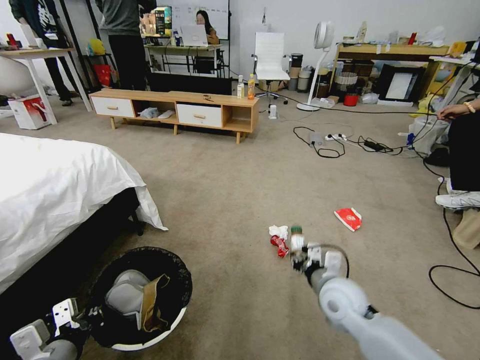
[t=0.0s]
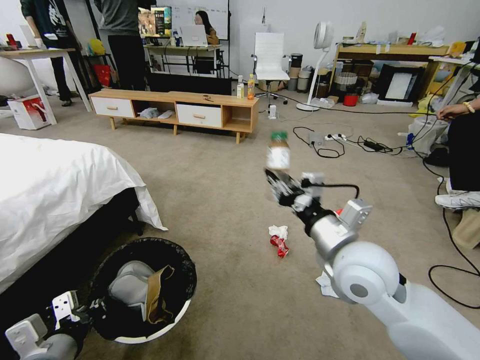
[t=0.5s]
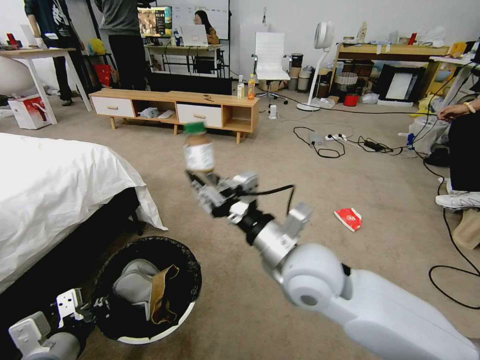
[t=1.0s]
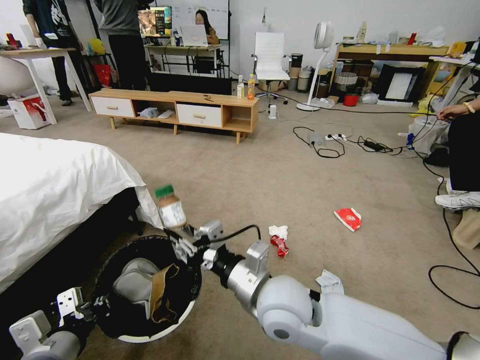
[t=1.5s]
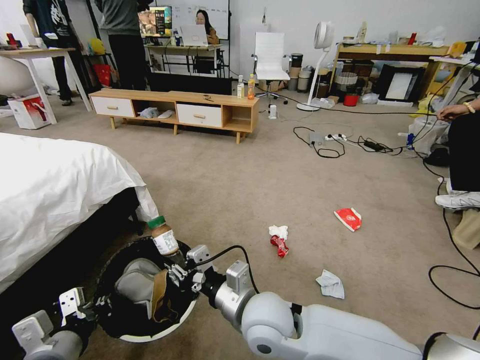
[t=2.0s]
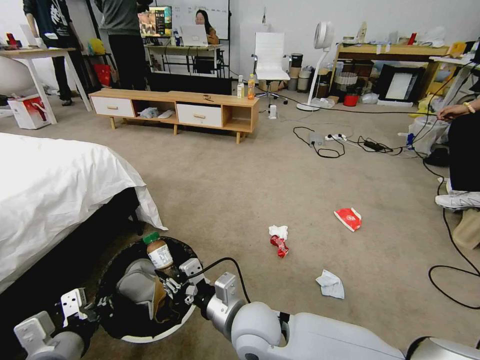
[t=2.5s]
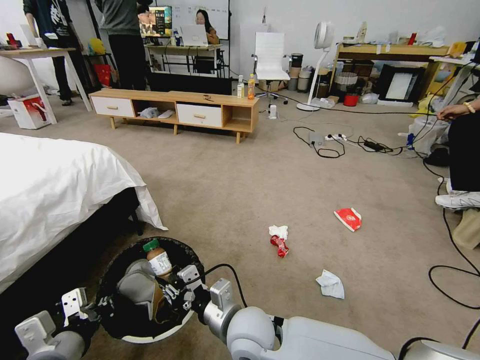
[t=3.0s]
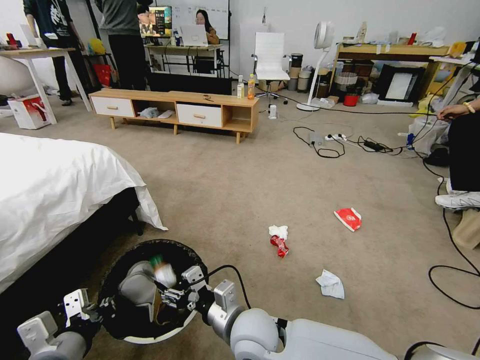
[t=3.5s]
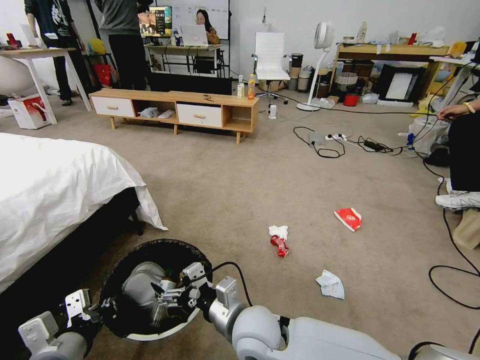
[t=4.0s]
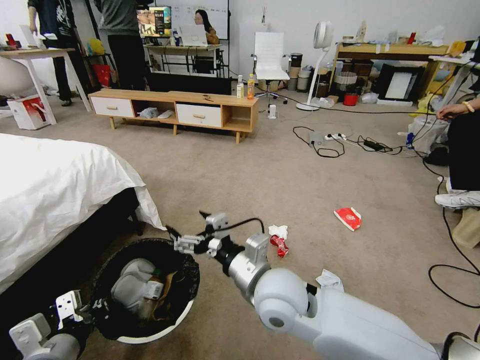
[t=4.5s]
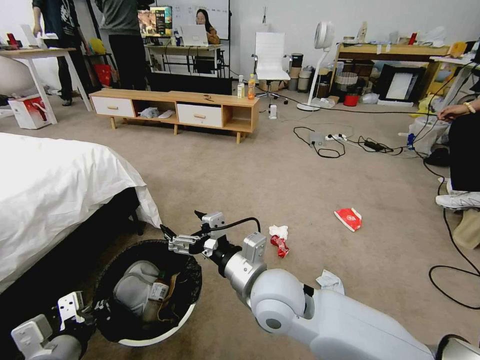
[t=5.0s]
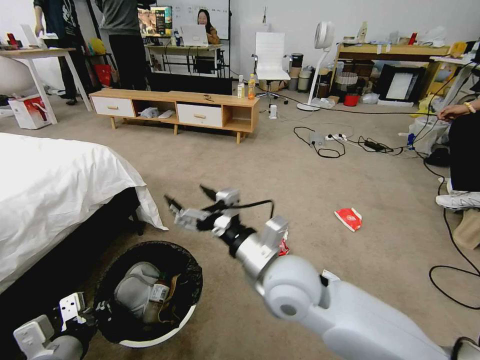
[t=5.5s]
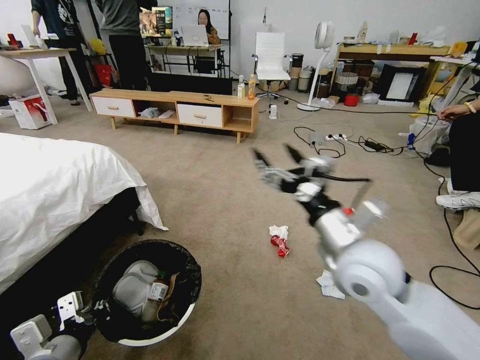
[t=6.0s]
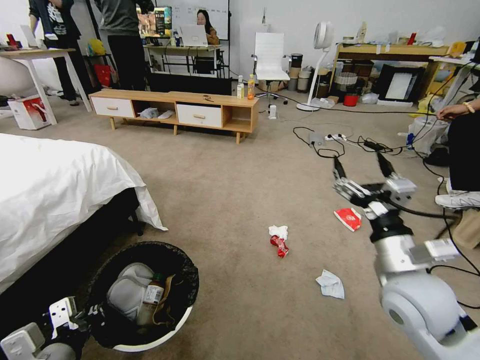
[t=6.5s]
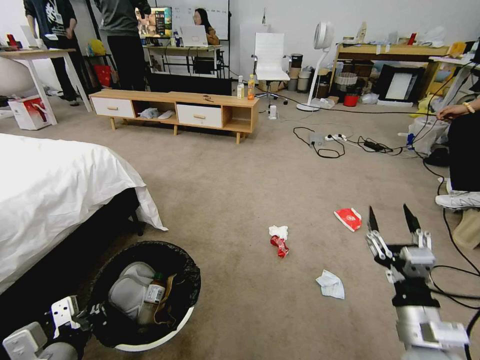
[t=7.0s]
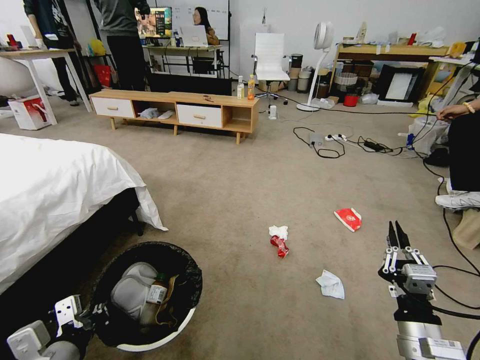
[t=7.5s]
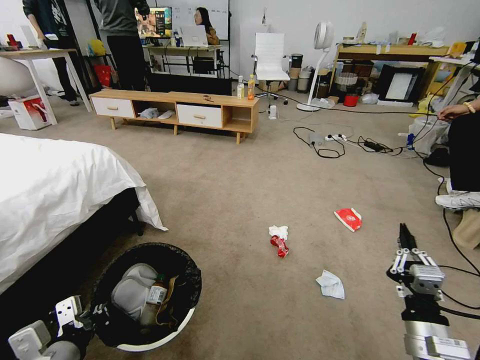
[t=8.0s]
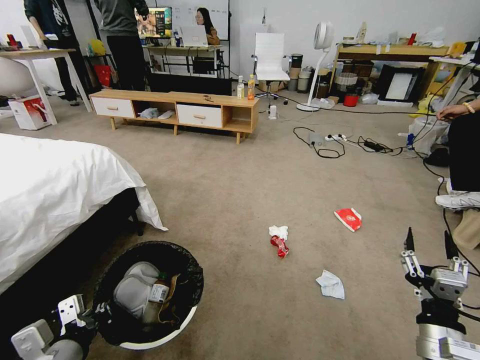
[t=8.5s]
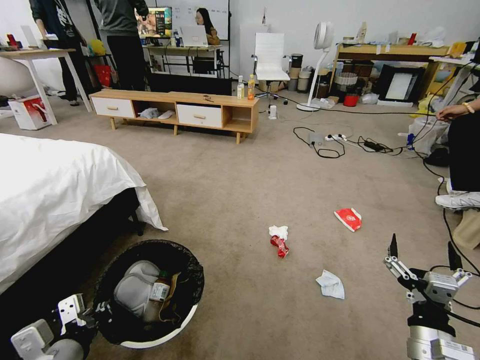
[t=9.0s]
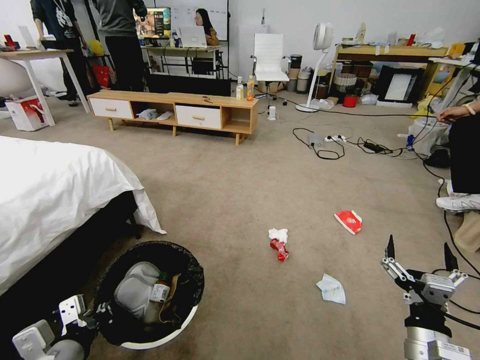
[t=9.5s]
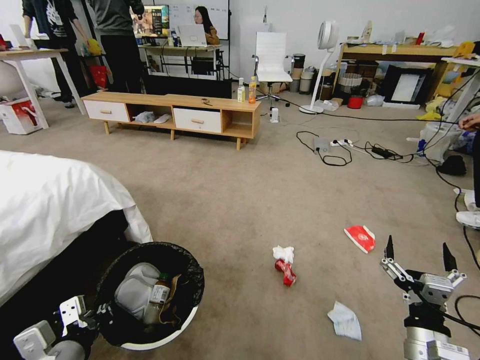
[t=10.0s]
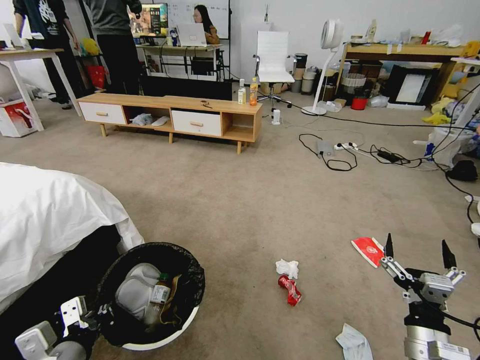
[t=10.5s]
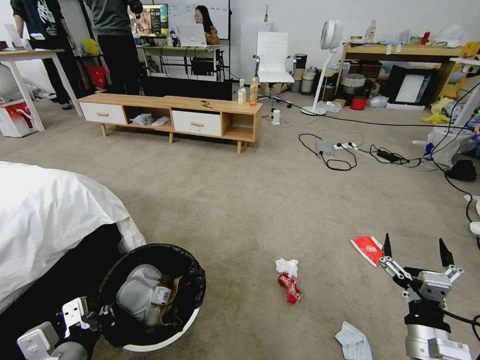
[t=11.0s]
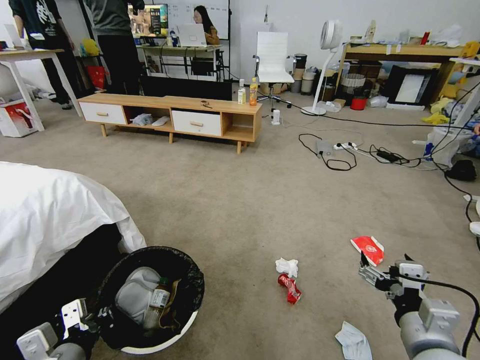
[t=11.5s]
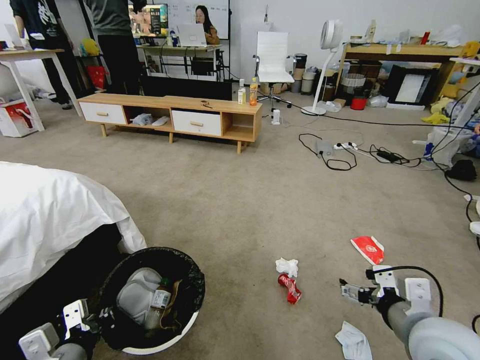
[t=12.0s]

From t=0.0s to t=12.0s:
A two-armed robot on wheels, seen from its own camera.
Task of the whole recording: Pick up the trash bin and place the garbage on the floor into it.
From t=0.0s to t=2.0s: The right gripper is displaced to the left by some 20 cm.
From t=2.0s to t=4.0s: The right gripper shifts by roughly 5 cm, and opens up.
From t=4.0s to t=6.0s: The right gripper heads to the right and upward, covering roughly 25 cm.
From t=6.0s to t=8.0s: The right gripper shifts some 20 cm downward, backward and to the right, and closes up.
From t=8.0s to t=10.0s: The right gripper opens up.
From t=10.0s to t=12.0s: The right gripper is displaced upward by about 10 cm.

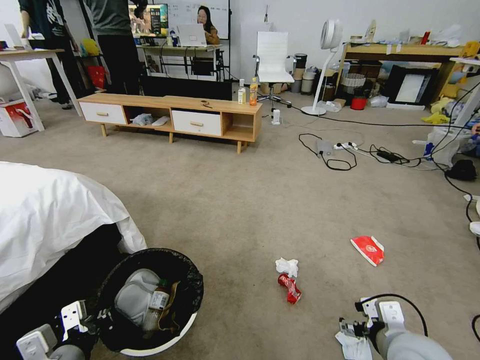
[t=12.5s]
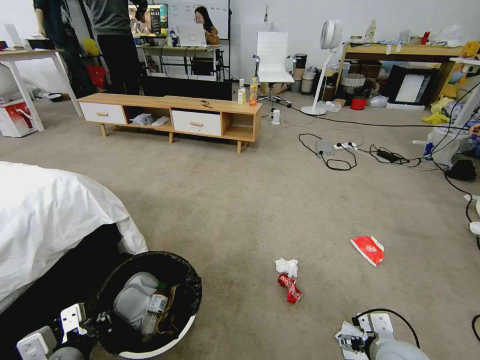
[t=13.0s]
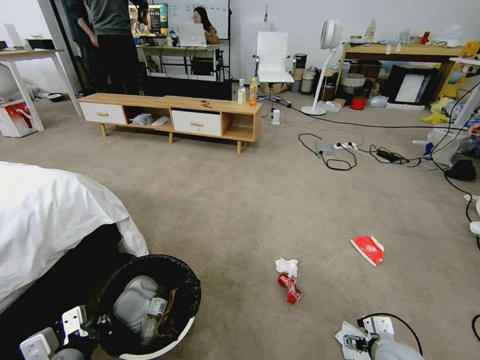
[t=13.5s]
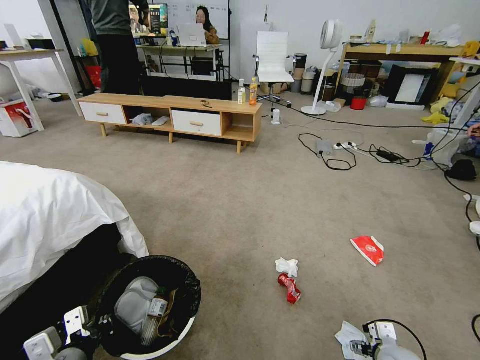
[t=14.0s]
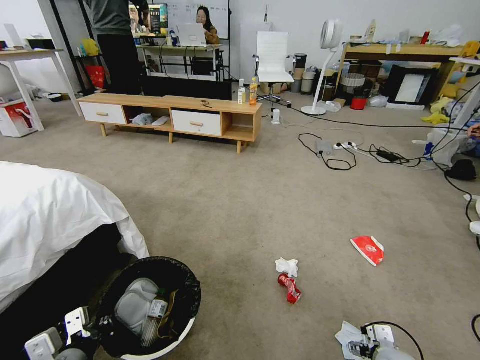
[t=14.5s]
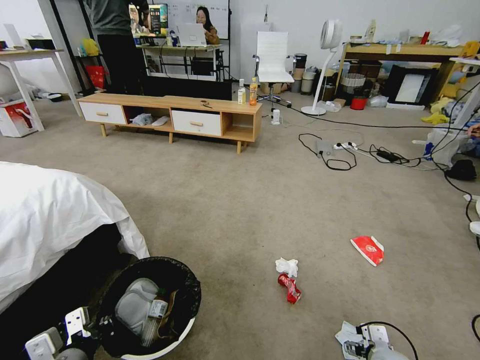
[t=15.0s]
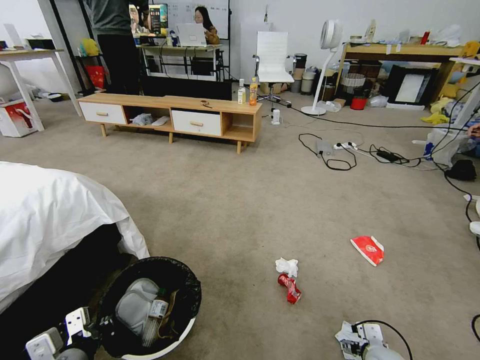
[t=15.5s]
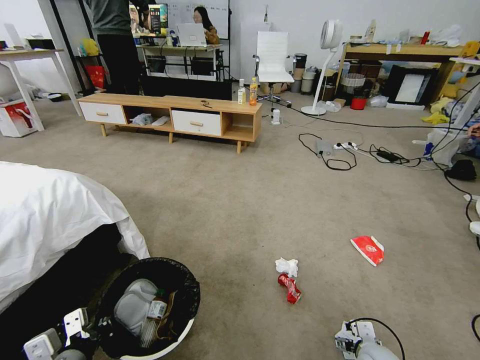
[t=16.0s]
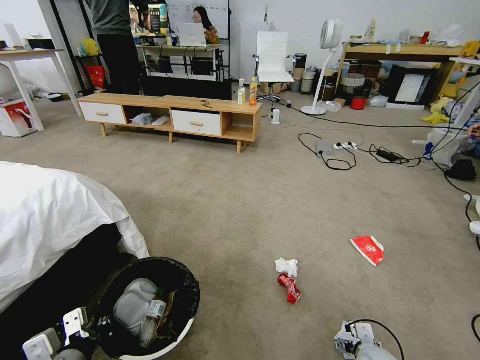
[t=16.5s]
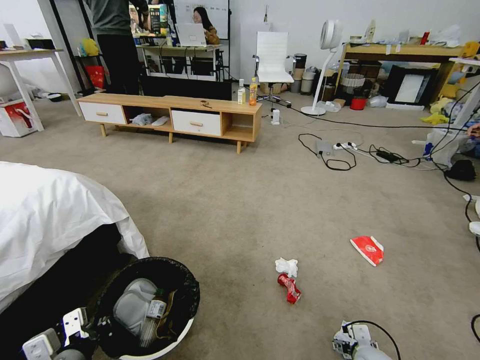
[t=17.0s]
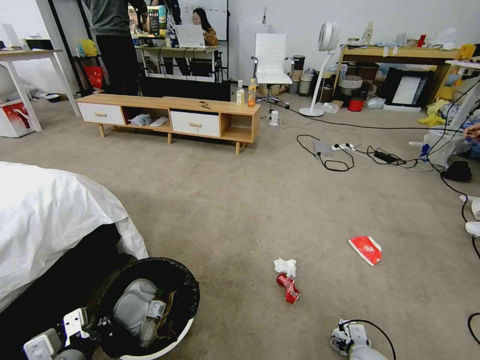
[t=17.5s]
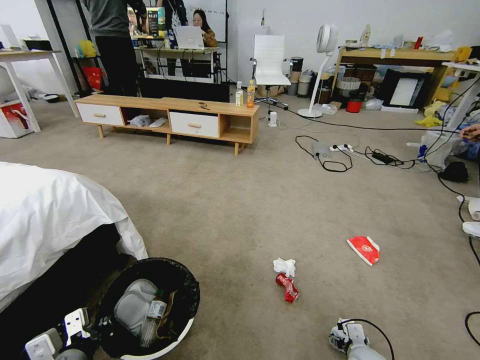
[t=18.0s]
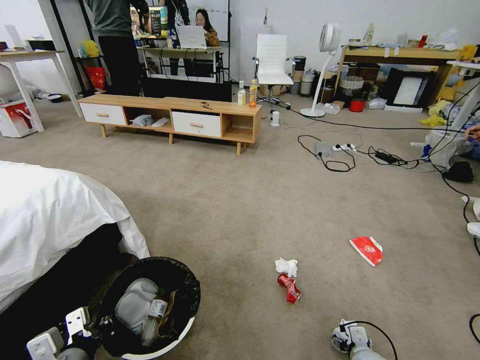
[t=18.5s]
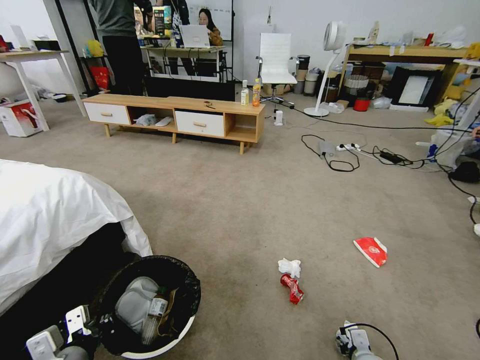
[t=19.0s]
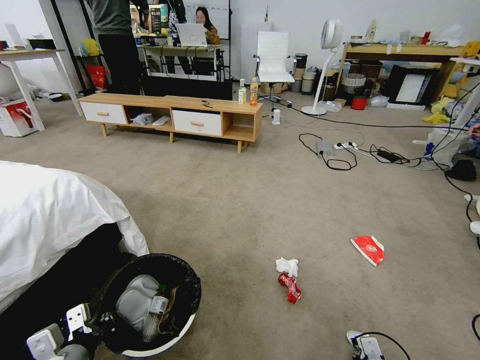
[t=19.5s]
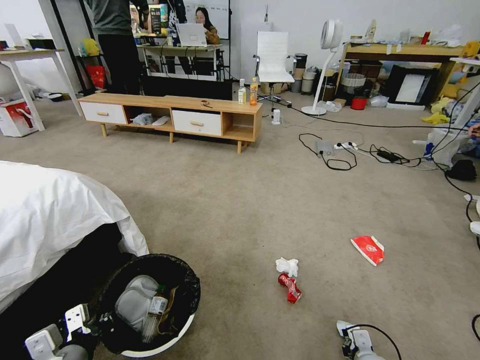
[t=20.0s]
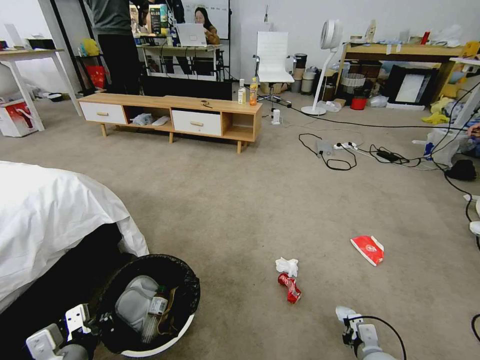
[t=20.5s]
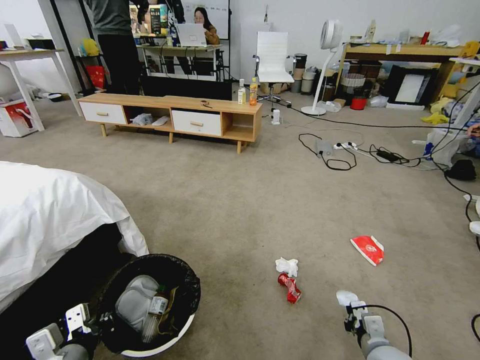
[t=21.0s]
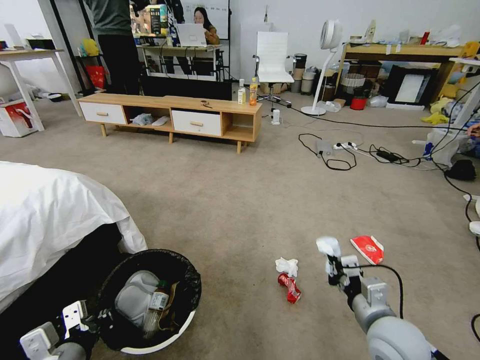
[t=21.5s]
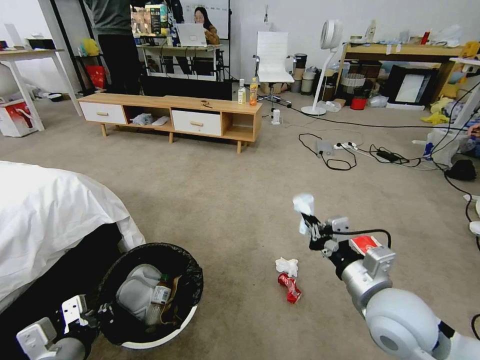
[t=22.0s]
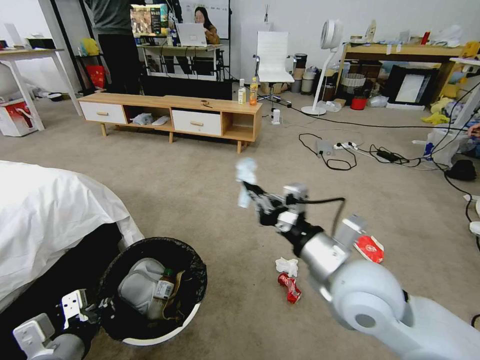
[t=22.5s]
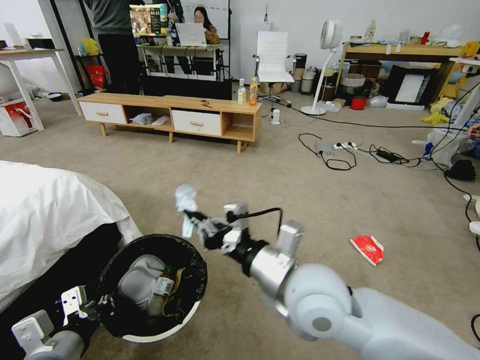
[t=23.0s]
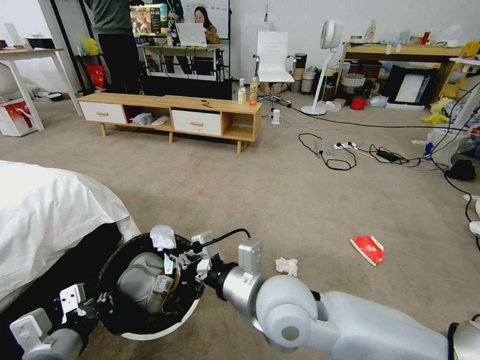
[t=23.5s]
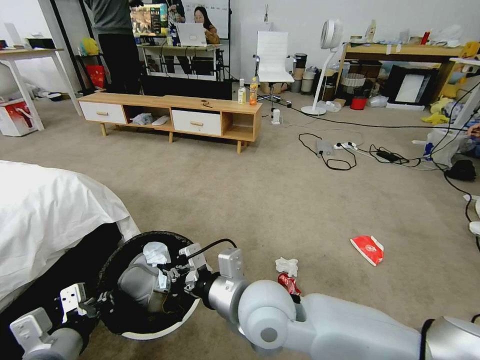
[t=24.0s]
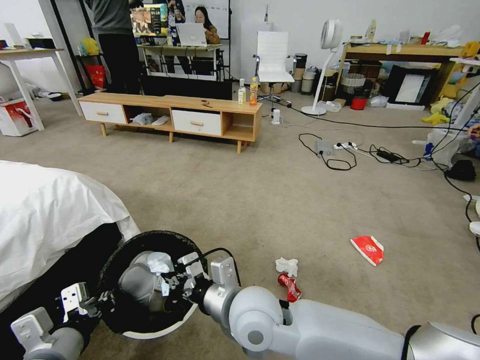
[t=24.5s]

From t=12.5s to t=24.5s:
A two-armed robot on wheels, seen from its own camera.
Task of the whole recording: Pick up the trash bin and place the garbage on the floor into it.
From t=12.5s to t=14.5s: The right gripper shifts roughly 15 cm downward.
From t=14.5s to t=16.5s: The right gripper ends up some 5 cm from where it was.
From t=16.5s to t=18.5s: The grippers make only small movements.
From t=18.5s to t=20.5s: The right gripper heads upward, covering some 5 cm, and closes up.
From t=20.5s to t=22.5s: The right gripper heads upward and to the left, covering some 35 cm, while the left gripper shifts by about 5 cm.
From t=22.5s to t=24.5s: The right gripper heads to the left and downward, covering about 20 cm.

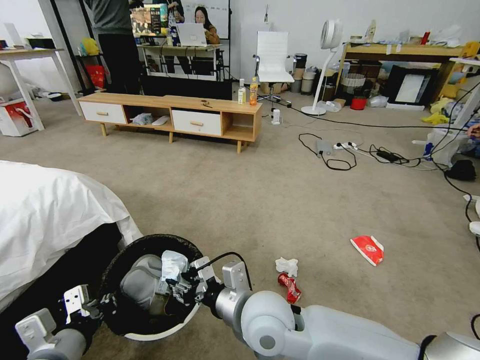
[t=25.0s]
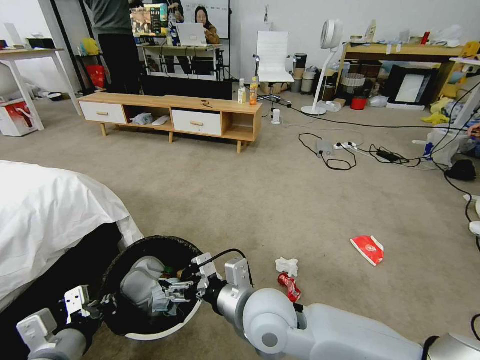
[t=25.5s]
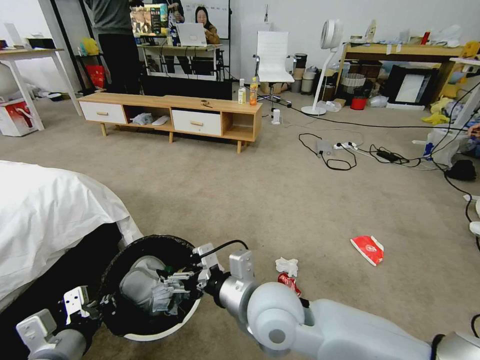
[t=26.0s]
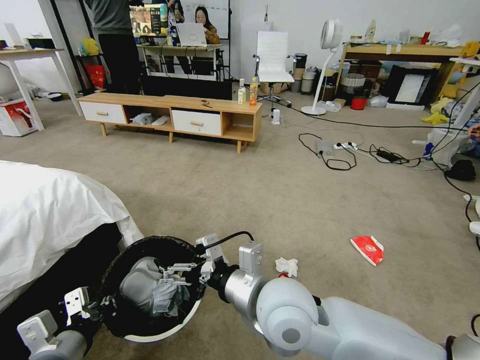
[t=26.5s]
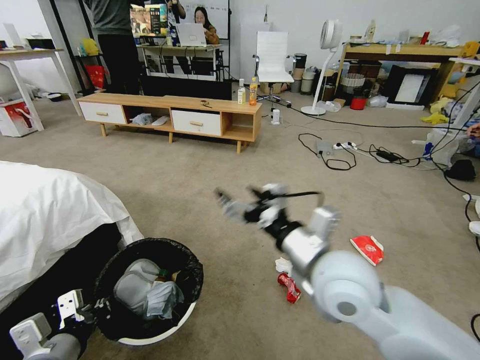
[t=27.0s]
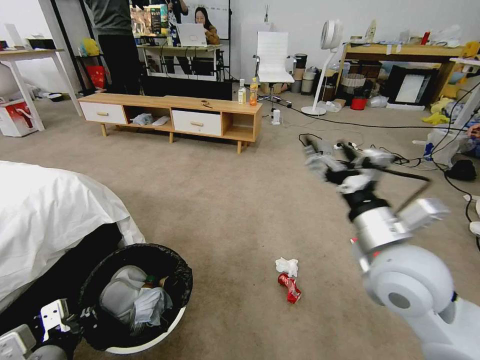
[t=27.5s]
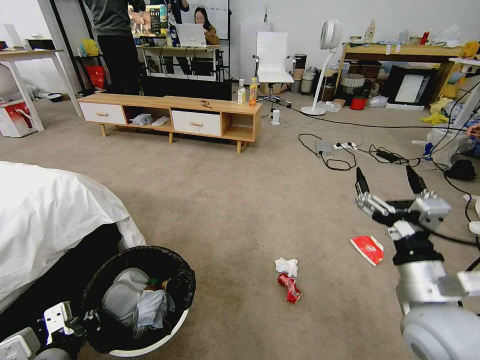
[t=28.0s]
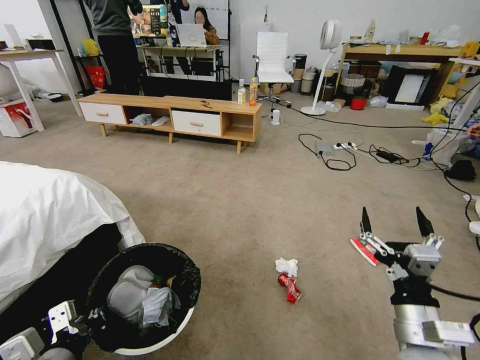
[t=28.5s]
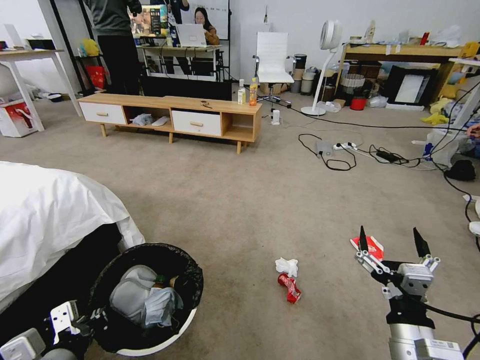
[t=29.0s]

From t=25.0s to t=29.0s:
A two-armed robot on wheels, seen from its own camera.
Task of the whole recording: Pick up the trash bin and place the garbage on the floor into it.
From t=25.0s to t=27.0s: The right gripper heads to the right and upward, covering roughly 15 cm, and opens up.
From t=27.0s to t=29.0s: The right gripper goes about 20 cm downward, to the right and backward.
